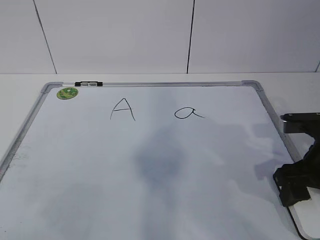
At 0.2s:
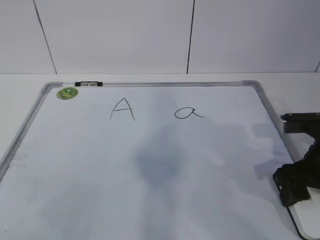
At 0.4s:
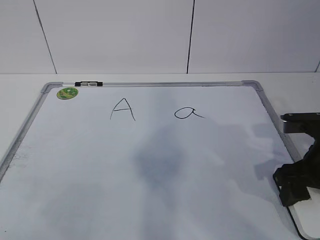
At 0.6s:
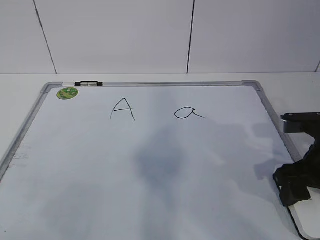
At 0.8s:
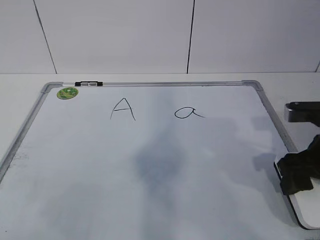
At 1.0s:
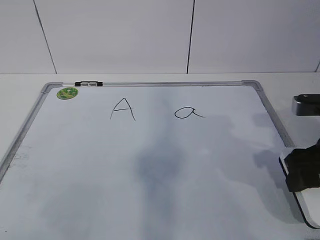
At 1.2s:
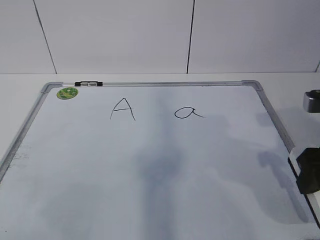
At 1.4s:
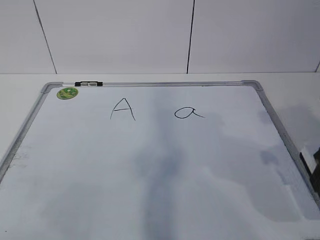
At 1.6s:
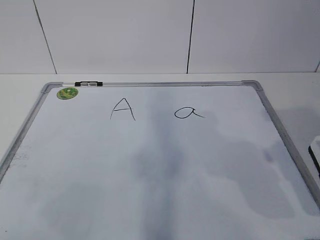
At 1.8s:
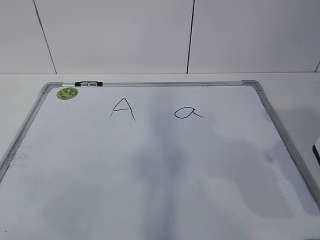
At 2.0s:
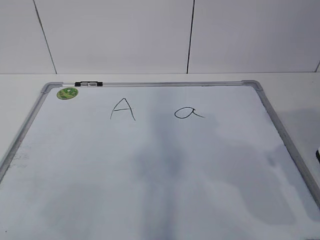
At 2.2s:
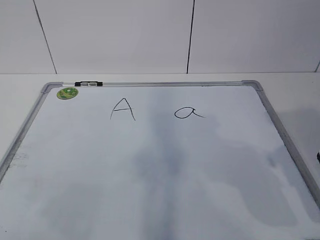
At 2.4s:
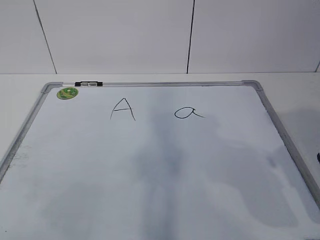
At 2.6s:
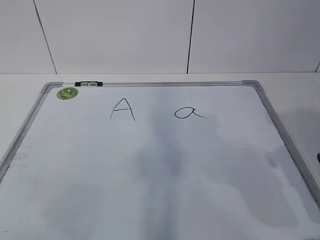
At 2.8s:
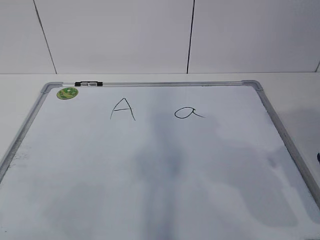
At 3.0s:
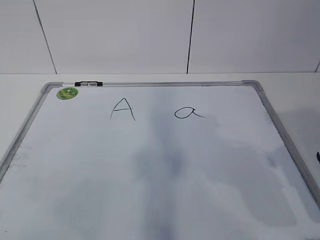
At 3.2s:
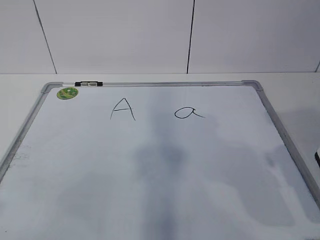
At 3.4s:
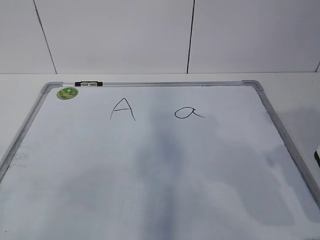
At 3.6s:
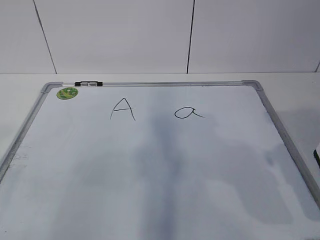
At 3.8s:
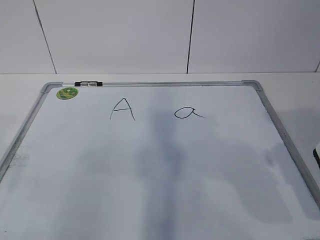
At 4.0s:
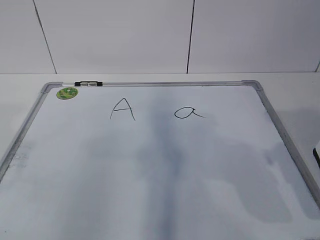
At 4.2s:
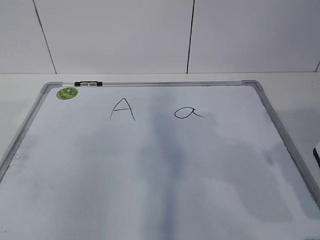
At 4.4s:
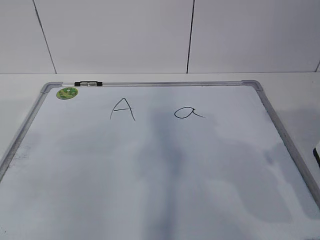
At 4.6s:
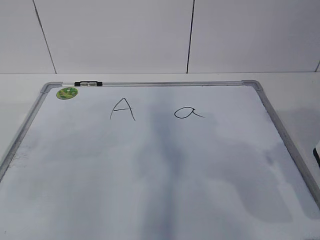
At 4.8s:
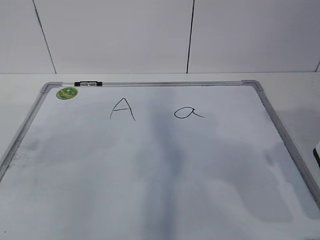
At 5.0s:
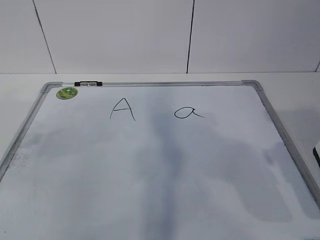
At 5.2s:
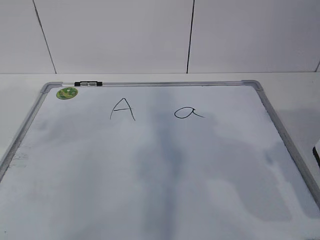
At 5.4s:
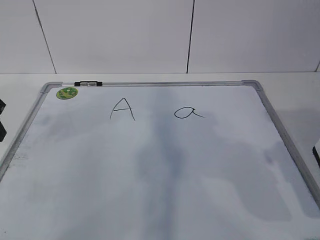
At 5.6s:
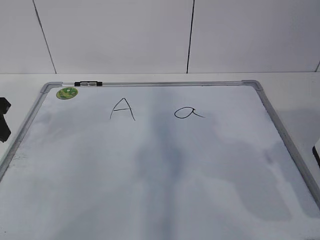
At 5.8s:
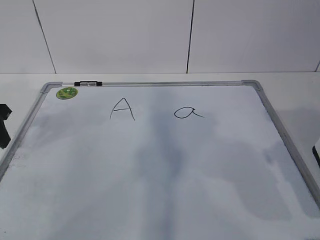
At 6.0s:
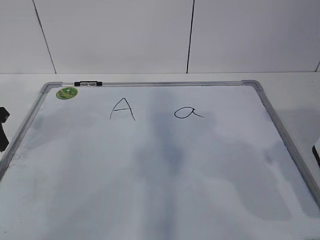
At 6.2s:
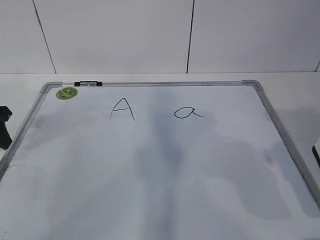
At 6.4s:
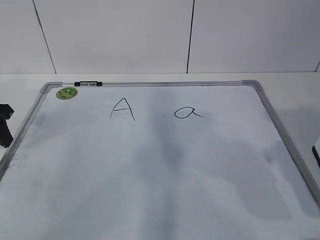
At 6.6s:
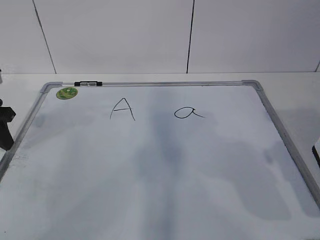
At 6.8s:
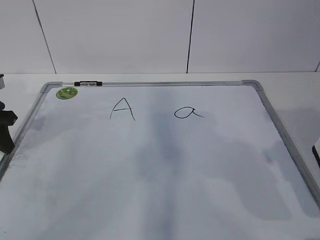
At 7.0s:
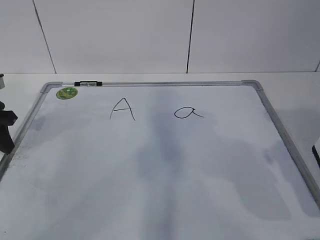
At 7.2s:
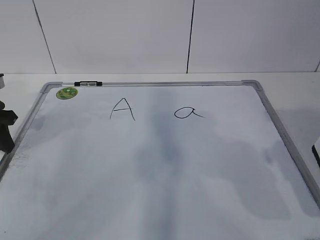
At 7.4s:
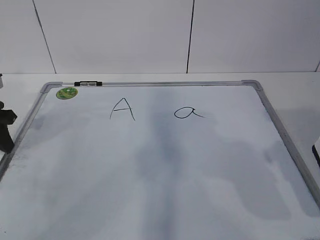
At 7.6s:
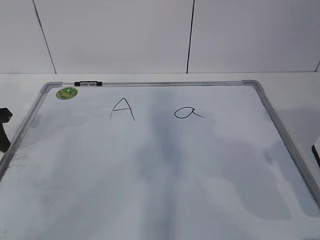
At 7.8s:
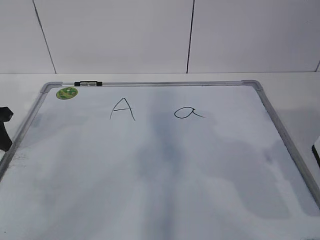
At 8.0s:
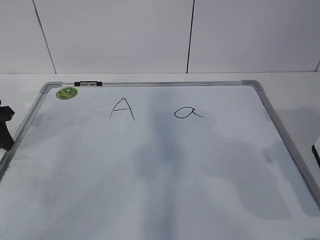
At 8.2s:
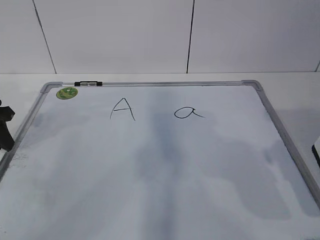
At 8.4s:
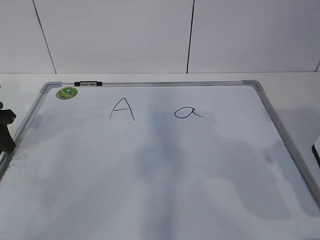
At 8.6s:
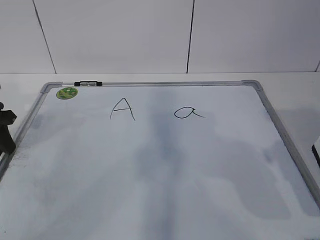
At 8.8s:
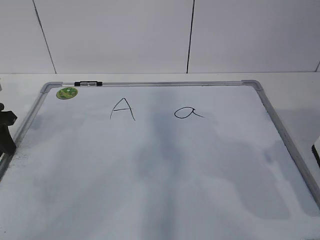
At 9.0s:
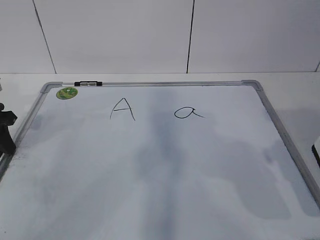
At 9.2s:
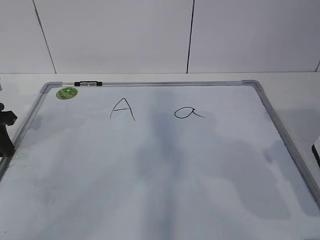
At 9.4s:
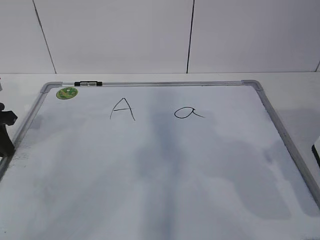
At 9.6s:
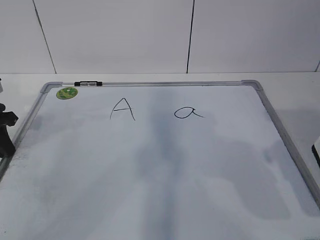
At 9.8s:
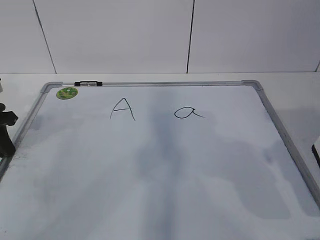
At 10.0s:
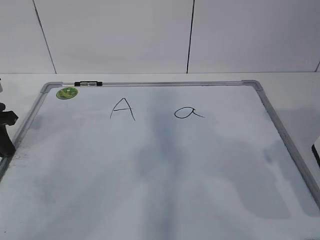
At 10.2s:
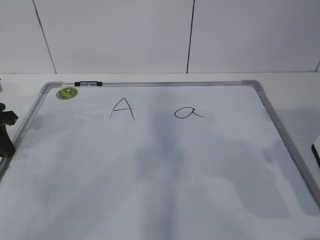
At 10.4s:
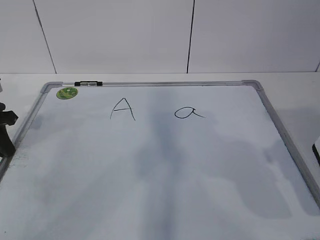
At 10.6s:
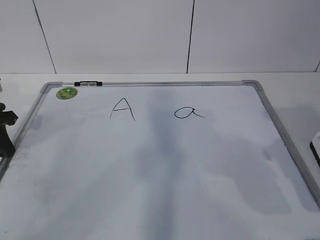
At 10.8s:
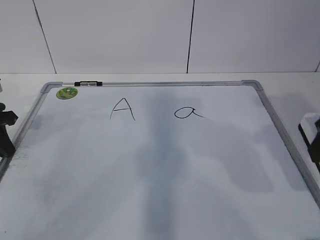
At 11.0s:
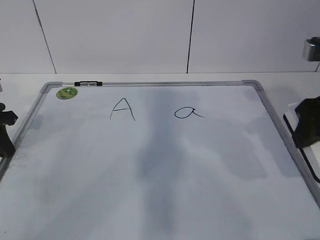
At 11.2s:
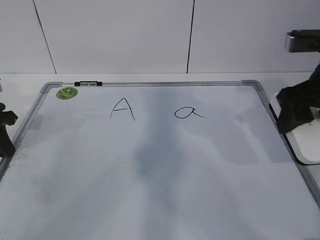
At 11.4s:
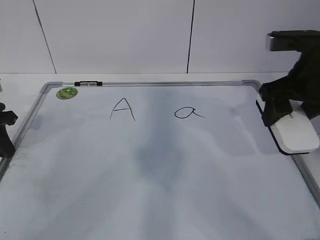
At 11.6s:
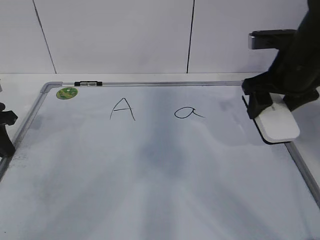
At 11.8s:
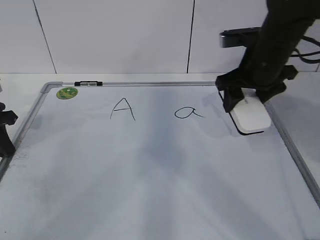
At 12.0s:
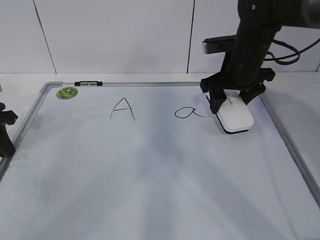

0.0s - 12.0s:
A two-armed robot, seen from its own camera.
Task of the whole recording: pick up the eraser on the blackboard and erase the letter "a".
Step, 0.0s - 7.2s: Hold the drawing board steady with your left hand.
Step, 7.4s - 12.0s: Erase the letter a with your right hand.
0.0s - 1.6s: The right gripper shifts approximately 10 cm upward and backward.
4.4s - 6.0s: The left gripper shifts about 20 cm forward and downward.
7.6s - 9.0s: Both grippers stay put.
10.4s - 12.0s: The right gripper heads forward, covering some 25 cm.

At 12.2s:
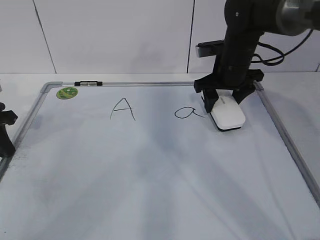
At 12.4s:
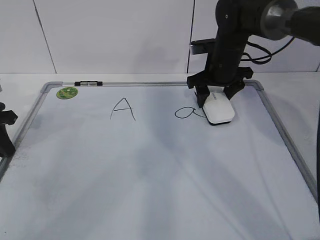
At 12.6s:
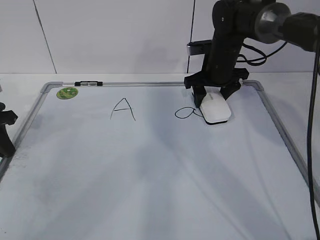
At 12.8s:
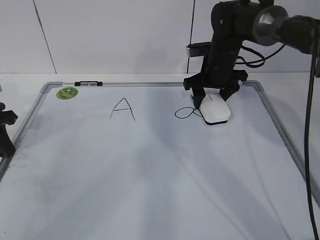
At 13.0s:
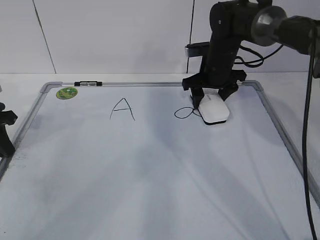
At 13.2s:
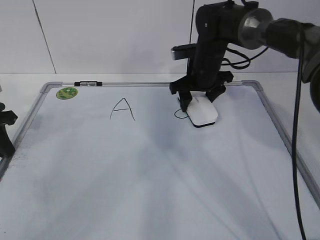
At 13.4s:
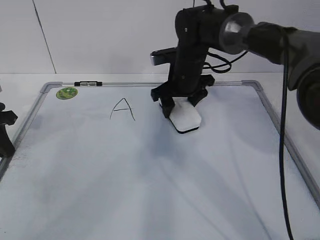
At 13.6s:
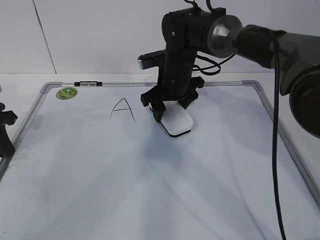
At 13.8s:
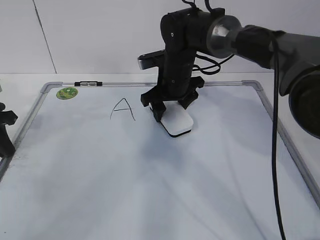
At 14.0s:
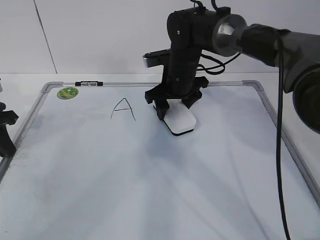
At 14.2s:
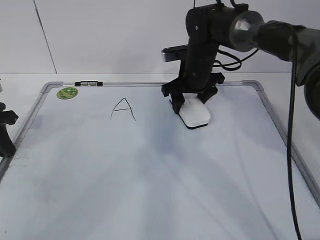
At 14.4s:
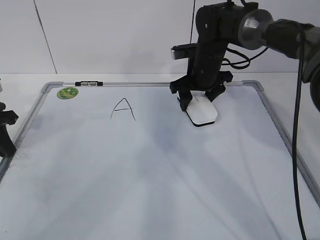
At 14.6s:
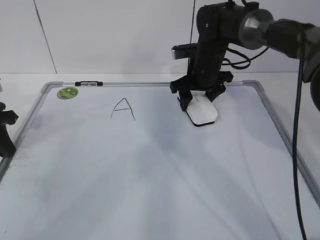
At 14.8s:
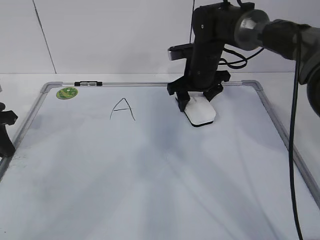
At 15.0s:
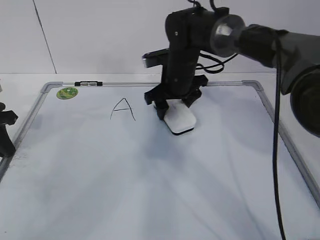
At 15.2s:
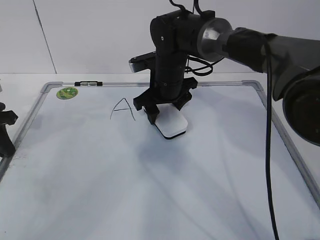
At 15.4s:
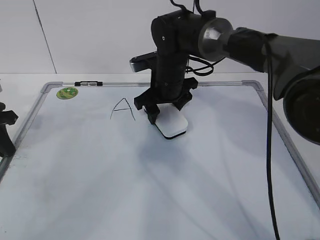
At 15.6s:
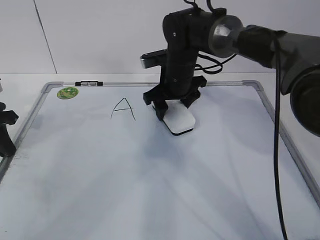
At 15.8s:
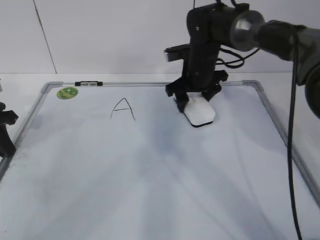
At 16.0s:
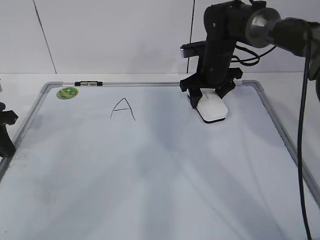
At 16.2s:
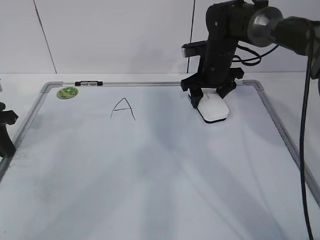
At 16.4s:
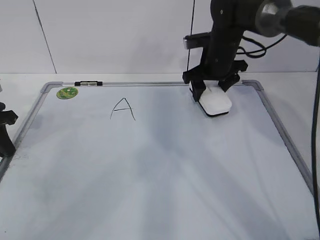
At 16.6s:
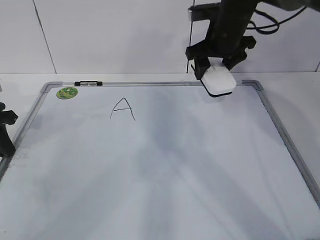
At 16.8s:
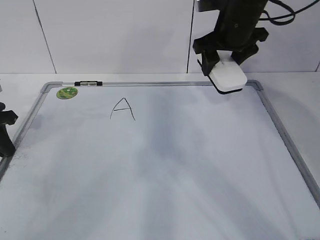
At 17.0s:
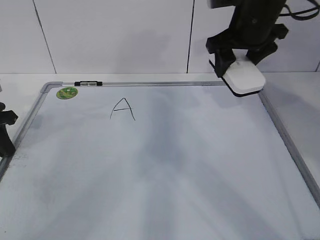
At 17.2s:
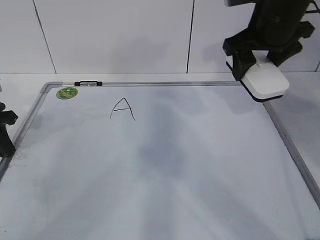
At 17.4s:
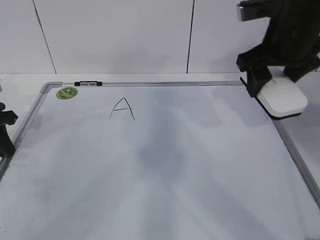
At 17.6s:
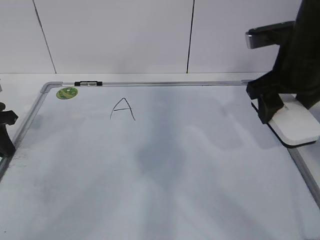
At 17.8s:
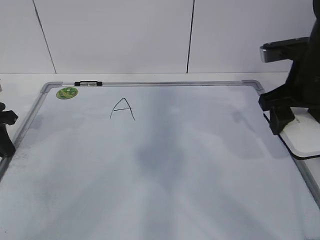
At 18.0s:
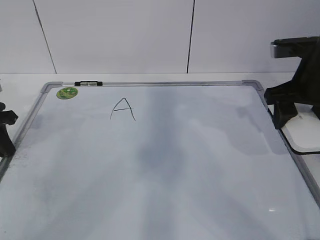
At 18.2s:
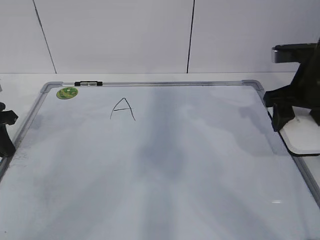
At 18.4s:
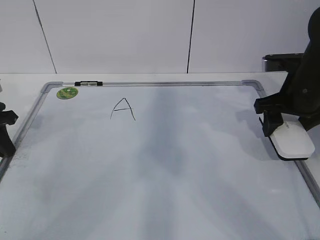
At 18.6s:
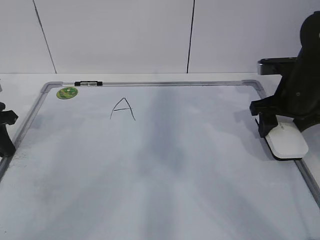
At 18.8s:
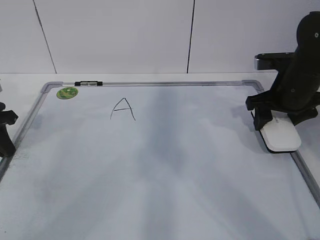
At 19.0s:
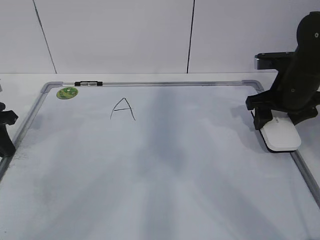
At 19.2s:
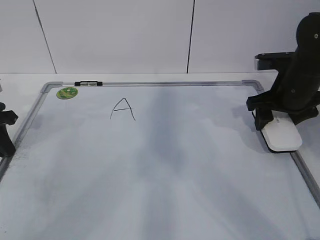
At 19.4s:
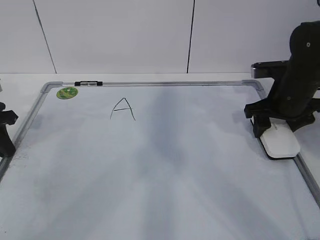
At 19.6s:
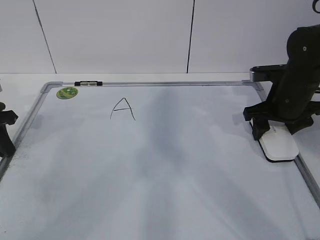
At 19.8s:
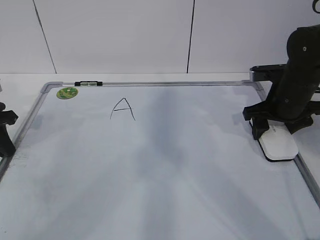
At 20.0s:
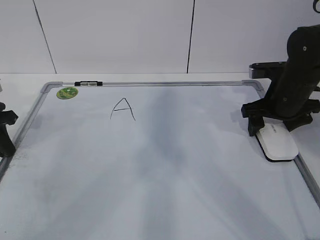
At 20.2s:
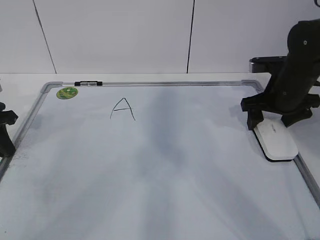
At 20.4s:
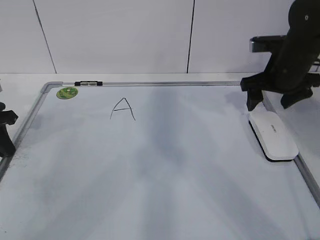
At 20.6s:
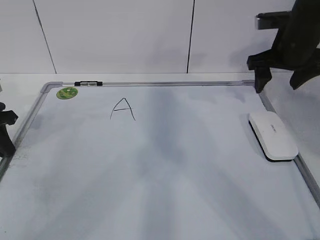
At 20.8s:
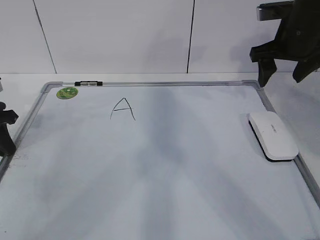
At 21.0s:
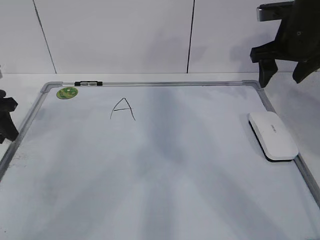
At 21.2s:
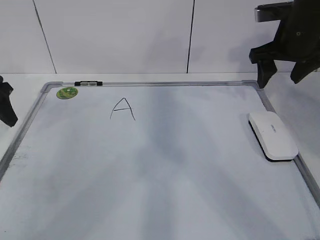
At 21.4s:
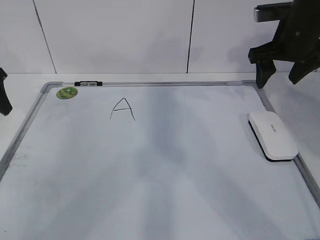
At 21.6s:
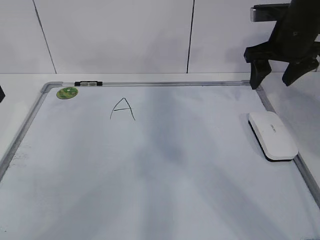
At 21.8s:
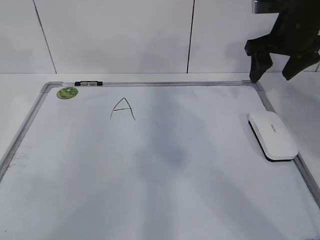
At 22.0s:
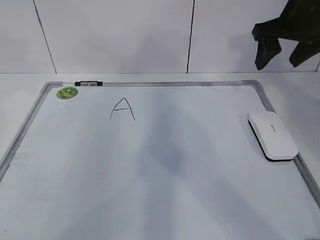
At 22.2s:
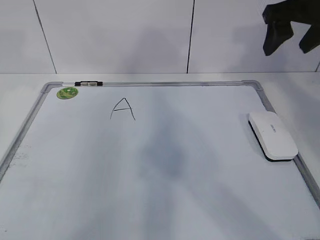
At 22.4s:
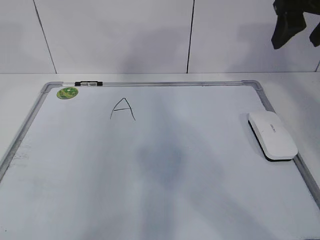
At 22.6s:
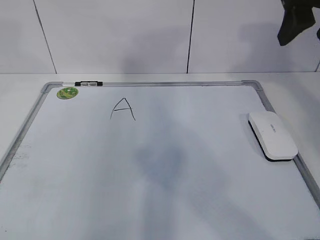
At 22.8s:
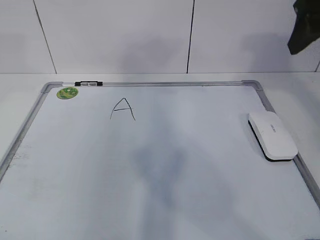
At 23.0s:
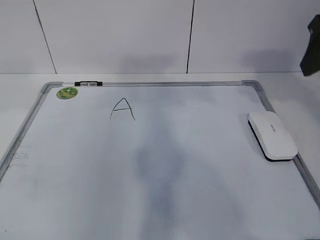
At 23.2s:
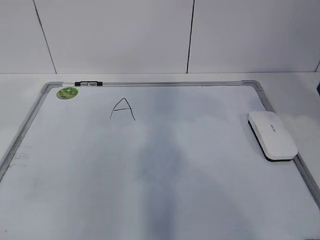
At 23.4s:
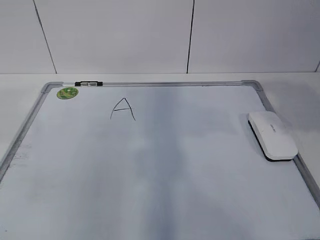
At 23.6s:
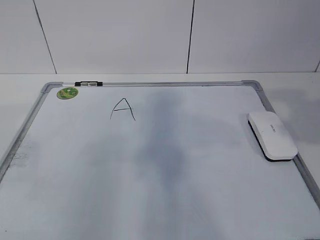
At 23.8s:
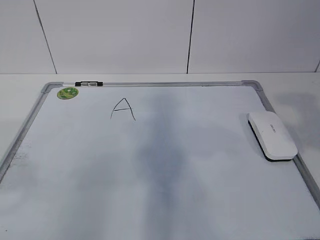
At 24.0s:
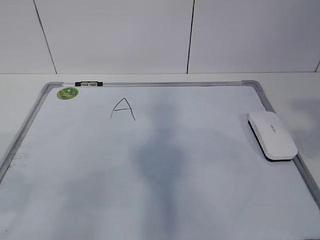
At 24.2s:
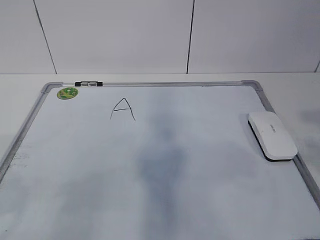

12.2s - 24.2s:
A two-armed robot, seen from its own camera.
Task of the whole recording: pick up the eraser on the blackboard and erase the letter "a".
Step, 12.2s - 15.0s: Put down the eraser with your right hand.
12.2s - 13.8s: The right gripper heads to the left, covering some 10 cm.
13.8s - 15.2s: The right gripper travels to the right and back again, approximately 5 cm each way.
15.2s - 16.6s: The right gripper moves to the right and upward, approximately 15 cm.
16.6s - 18.2s: The right gripper shifts approximately 15 cm backward and to the right.
18.2s - 19.8s: The right gripper moves downward, roughly 5 cm.
19.8s - 21.2s: The left gripper moves some 5 cm, and opens. Meanwhile the right gripper travels upward by approximately 10 cm, and opens.
21.2s - 22.6s: The left gripper heads upward and backward, covering approximately 25 cm; the right gripper moves upward and backward, approximately 10 cm.
22.6s - 24.2s: The right gripper is displaced backward by approximately 30 cm, while the left gripper is displaced backward and downward by approximately 25 cm.
